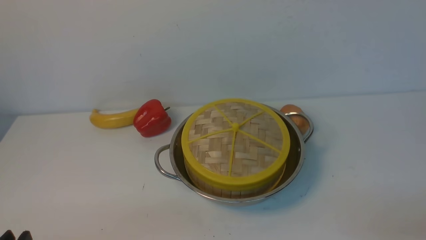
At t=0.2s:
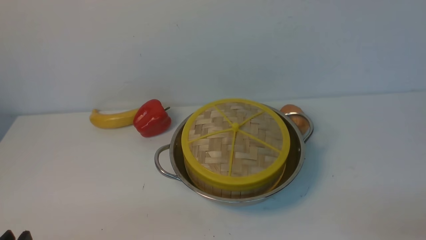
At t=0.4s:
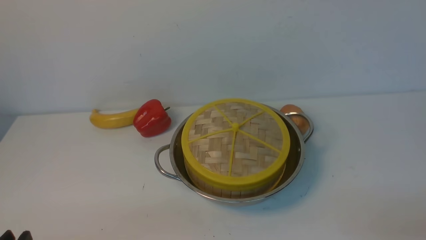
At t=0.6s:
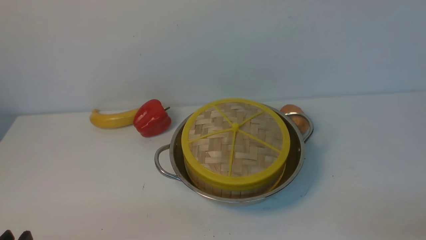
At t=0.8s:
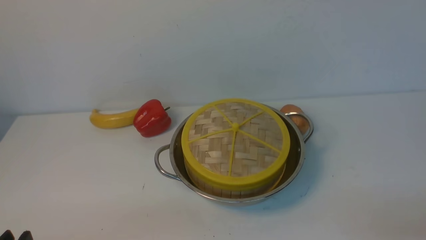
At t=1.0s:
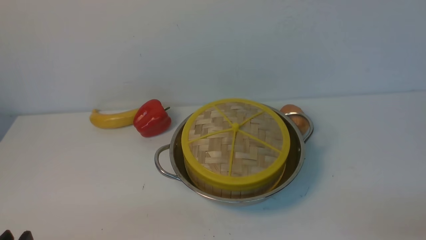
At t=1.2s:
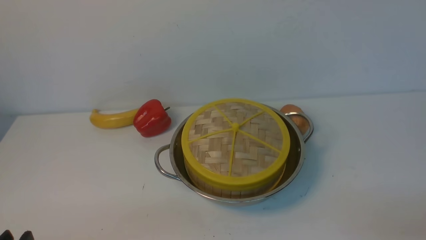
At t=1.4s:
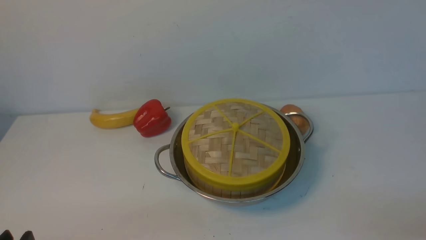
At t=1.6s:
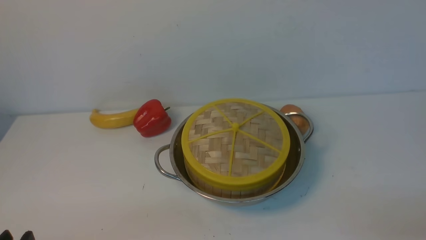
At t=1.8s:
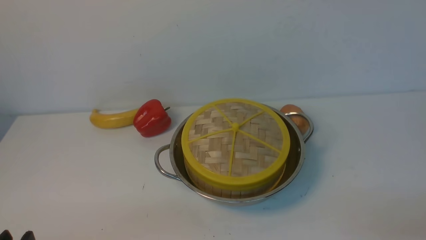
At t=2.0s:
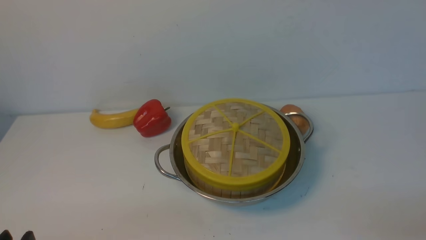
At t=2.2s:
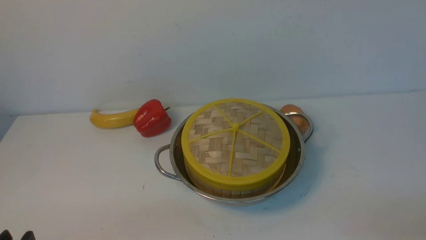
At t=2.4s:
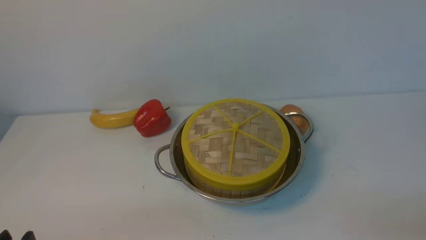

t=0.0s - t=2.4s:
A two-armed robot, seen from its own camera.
Task of the whole recording: place the steamer in the pot on the white table, and put the lid on the steamer.
t=0.0s - t=2.4s: Neither gripper changes place.
